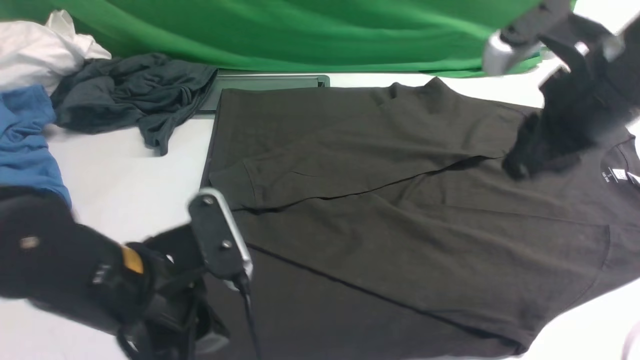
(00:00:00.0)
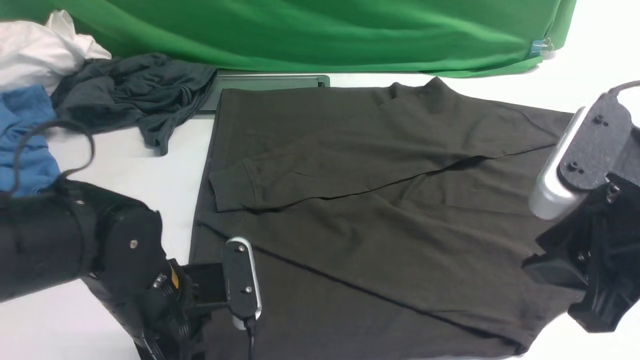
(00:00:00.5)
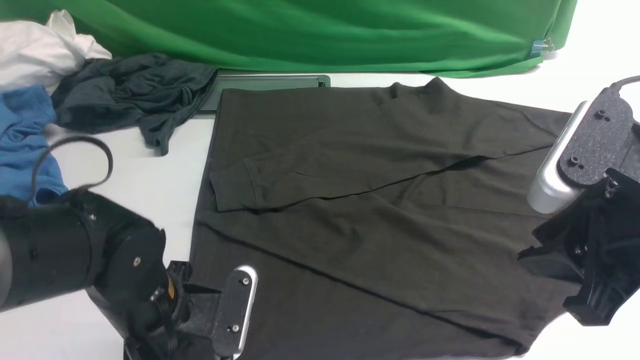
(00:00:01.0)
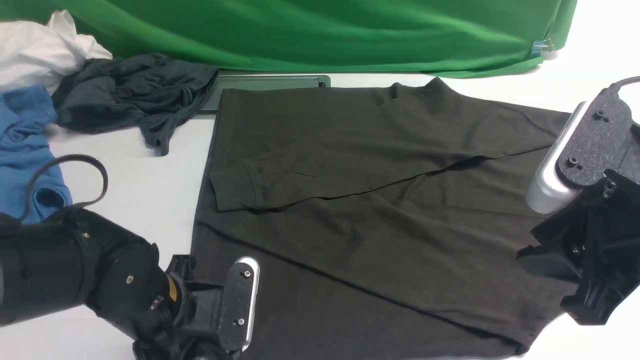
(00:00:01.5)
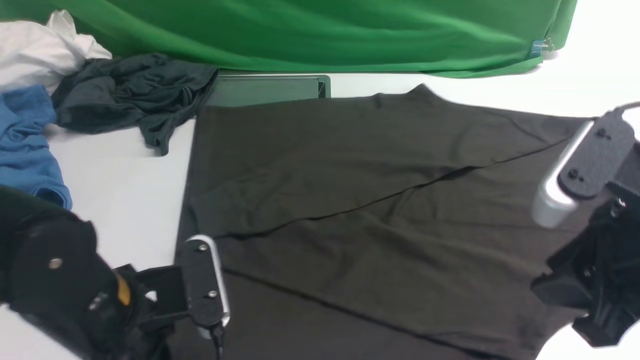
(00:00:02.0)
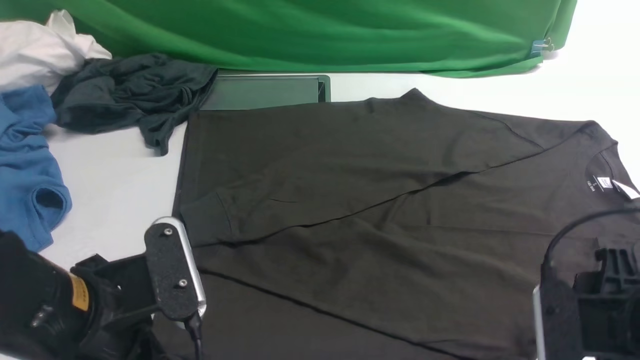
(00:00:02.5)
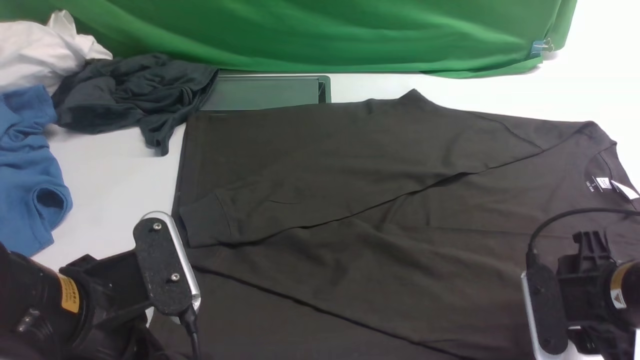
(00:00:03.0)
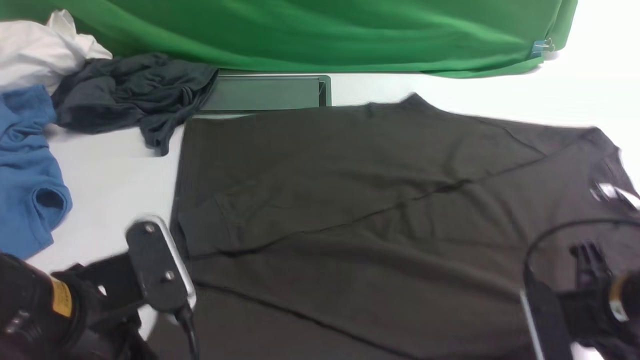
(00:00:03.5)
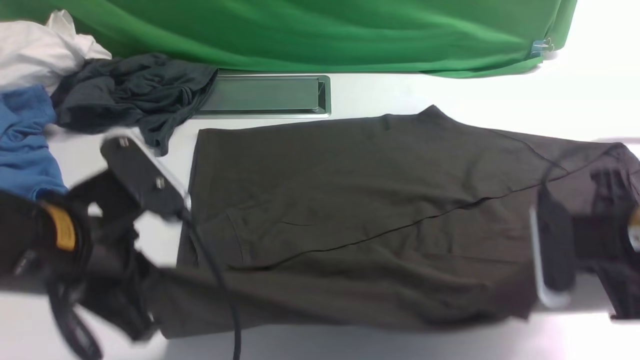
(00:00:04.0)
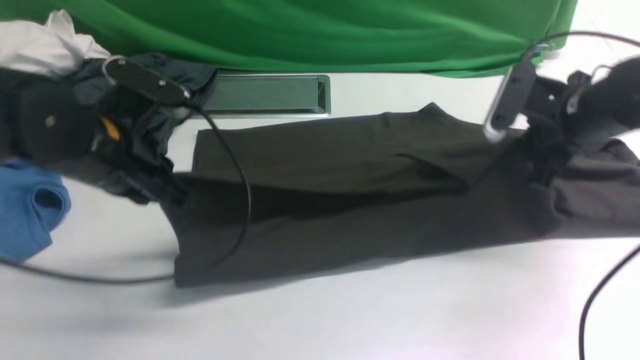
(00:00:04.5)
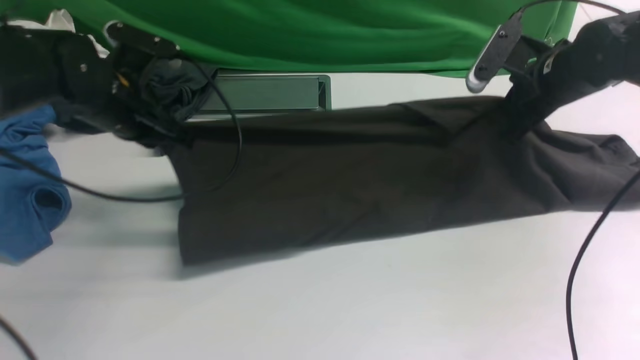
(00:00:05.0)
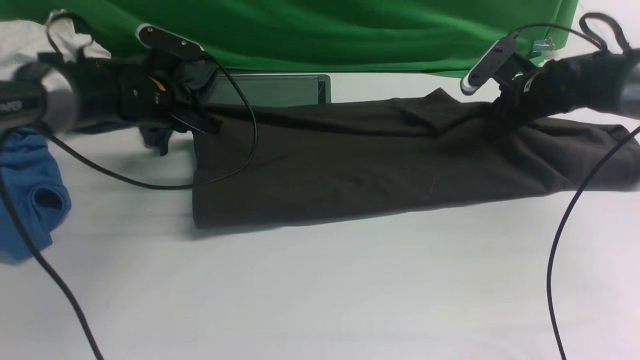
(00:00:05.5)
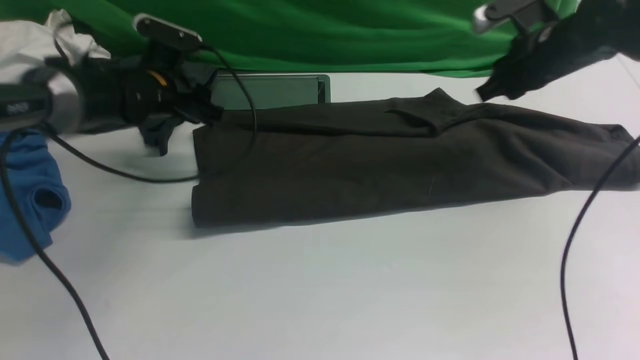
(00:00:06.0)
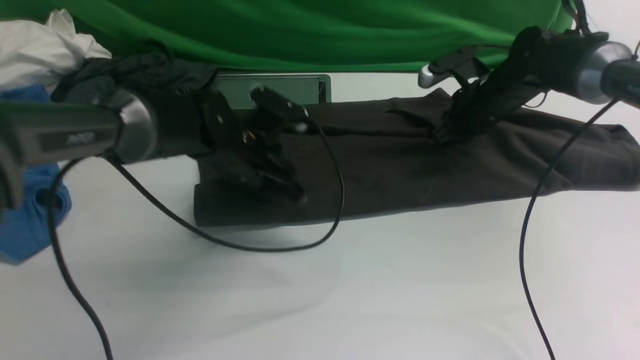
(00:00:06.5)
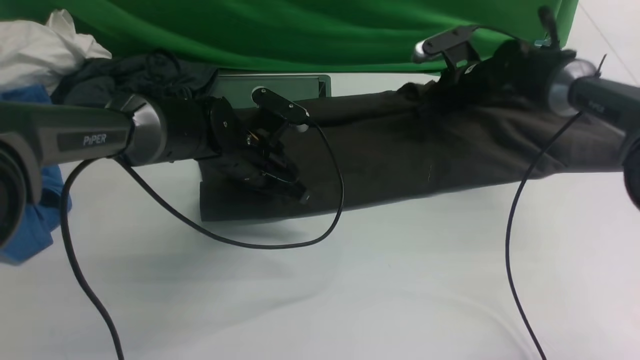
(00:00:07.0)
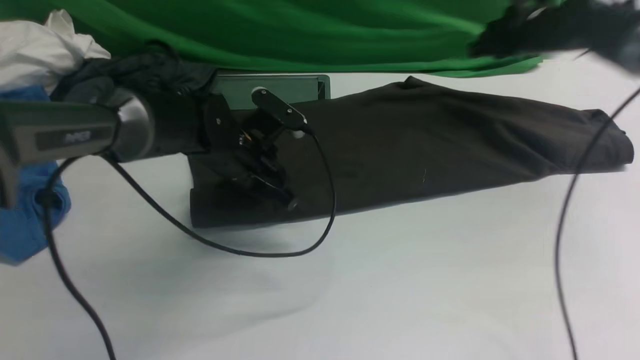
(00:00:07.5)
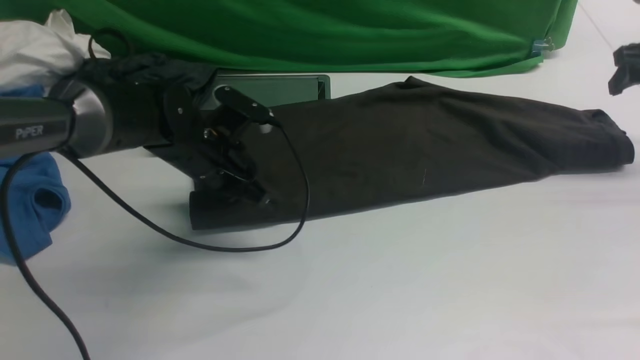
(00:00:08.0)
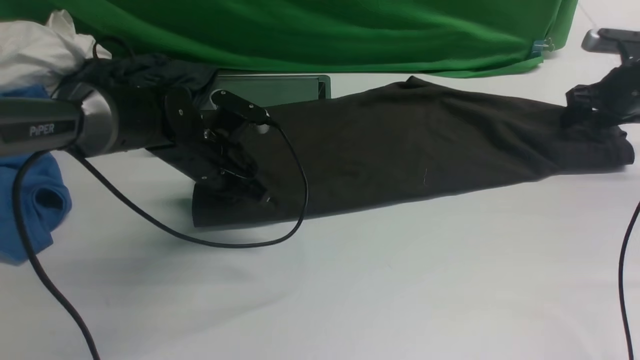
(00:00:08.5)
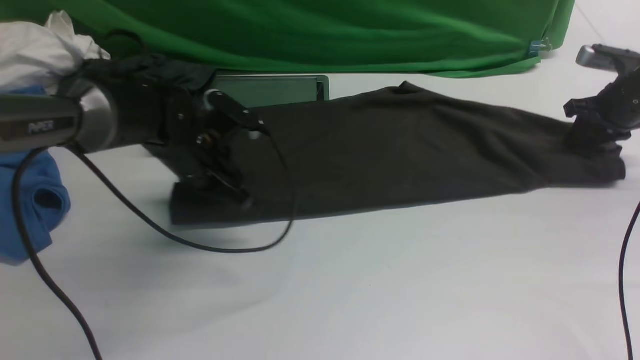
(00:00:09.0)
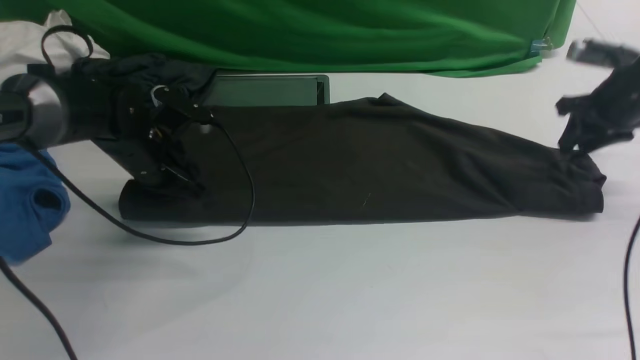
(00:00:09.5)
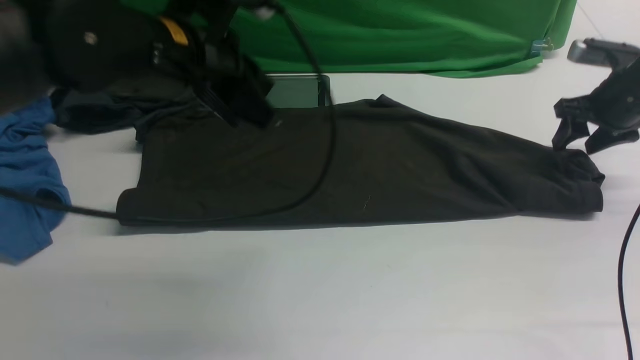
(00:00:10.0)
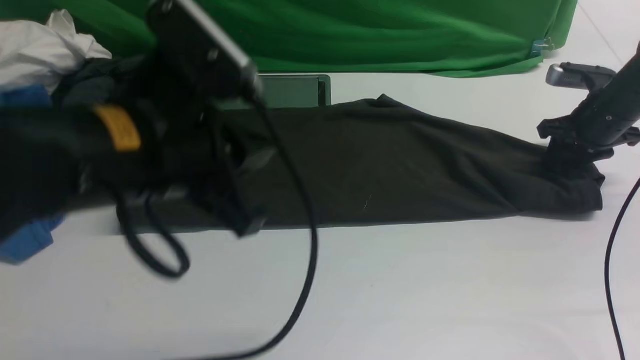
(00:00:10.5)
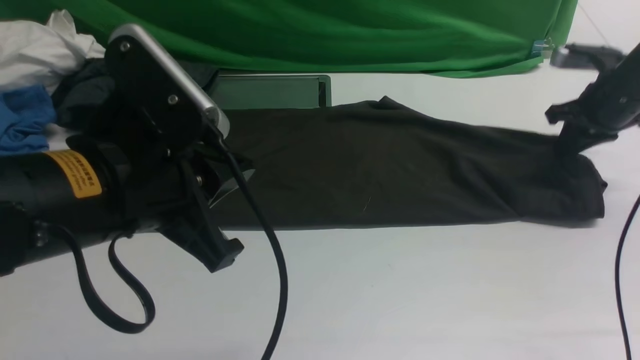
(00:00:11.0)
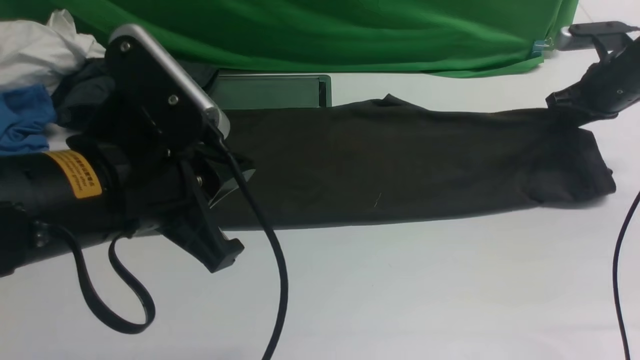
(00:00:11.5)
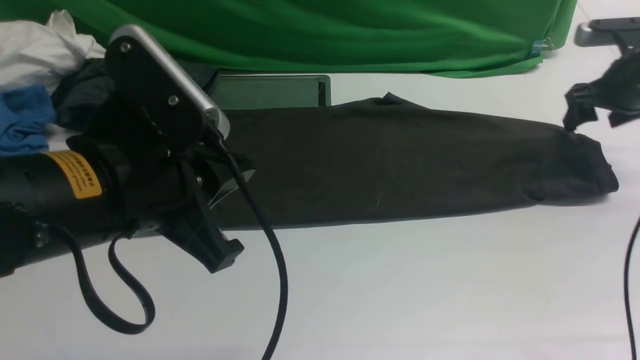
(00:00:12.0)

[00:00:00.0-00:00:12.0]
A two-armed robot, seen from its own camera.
Step, 00:00:00.0 to 00:00:03.5: use both arms simultaneously to clamp the lower edge of the clothing fabric.
00:00:00.0 to 00:00:02.0: The right gripper moves backward, about 10 cm. The left gripper opens and closes again.
00:00:02.0 to 00:00:04.0: The right gripper is displaced downward and forward by some 10 cm, and closes up, while the left gripper is displaced upward by approximately 5 cm.
00:00:04.0 to 00:00:06.0: Both grippers travel together forward, roughly 25 cm. The left gripper opens its fingers.
00:00:06.0 to 00:00:08.0: The left gripper moves backward and to the right, some 10 cm, and closes; the right gripper shifts about 20 cm to the right, and opens.
00:00:08.0 to 00:00:10.0: The left gripper shifts roughly 20 cm upward and backward; the right gripper shifts approximately 5 cm to the left, and closes, then opens again.
00:00:10.0 to 00:00:12.0: The right gripper closes, then reopens; the left gripper heads backward, covering some 10 cm.

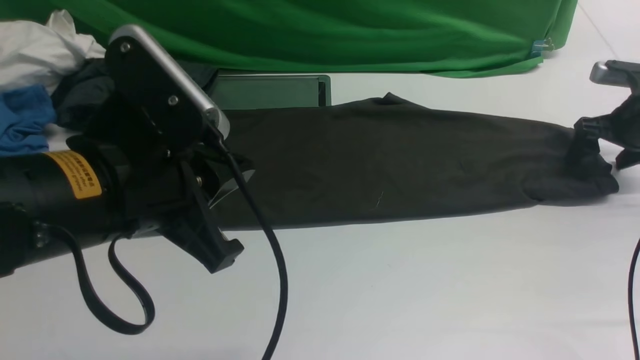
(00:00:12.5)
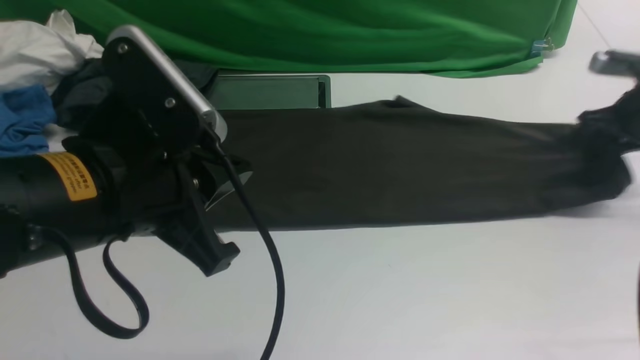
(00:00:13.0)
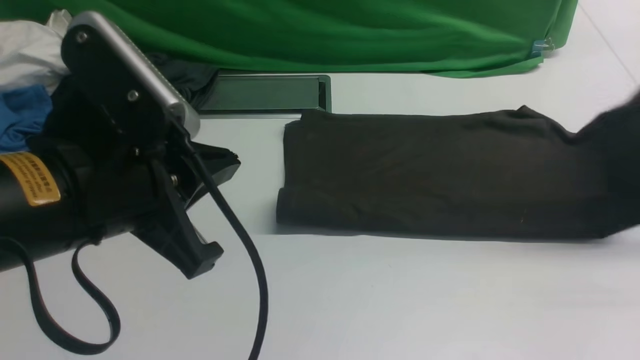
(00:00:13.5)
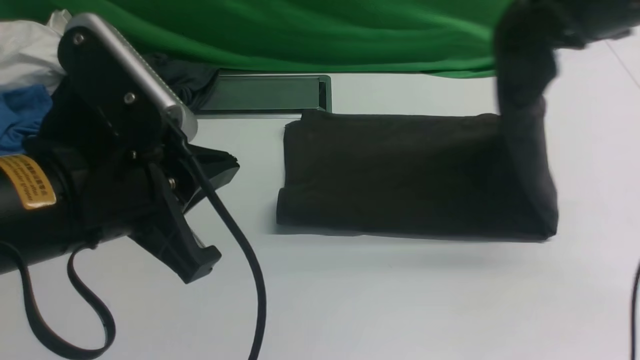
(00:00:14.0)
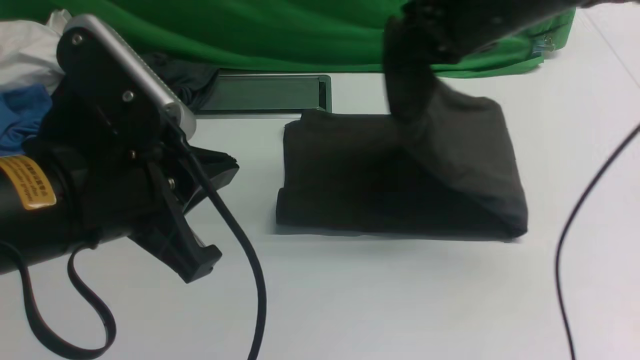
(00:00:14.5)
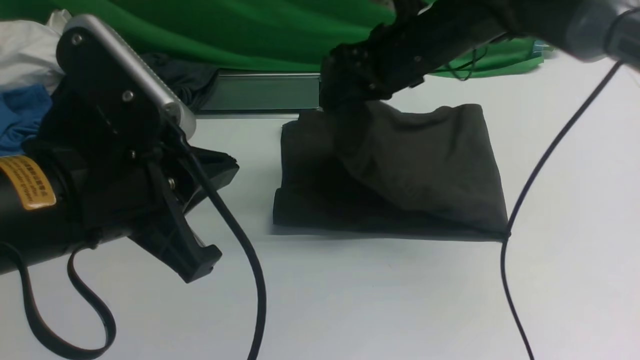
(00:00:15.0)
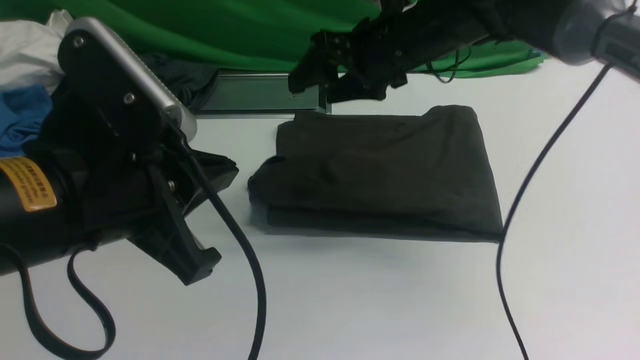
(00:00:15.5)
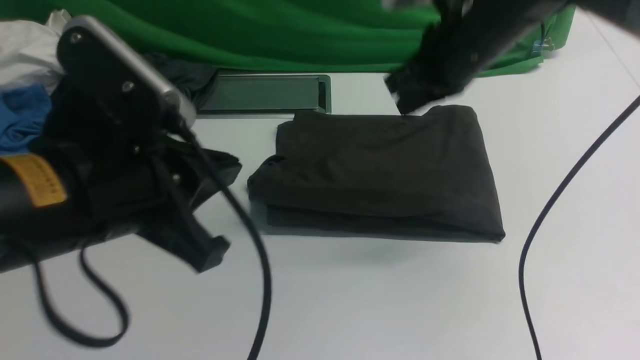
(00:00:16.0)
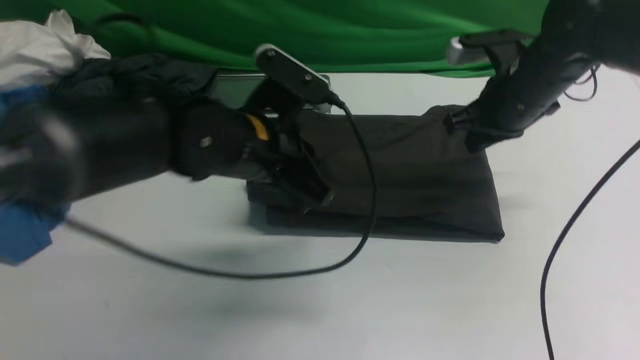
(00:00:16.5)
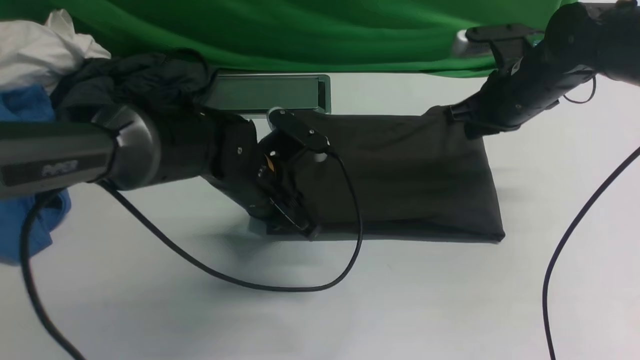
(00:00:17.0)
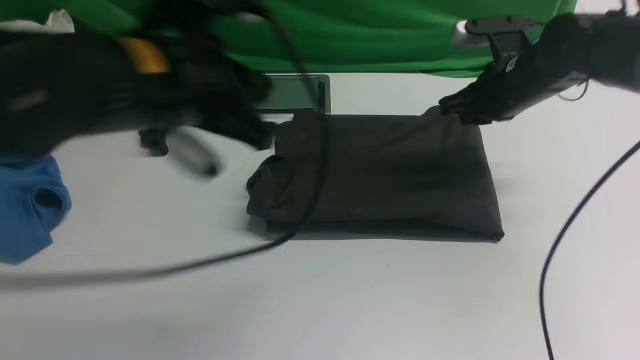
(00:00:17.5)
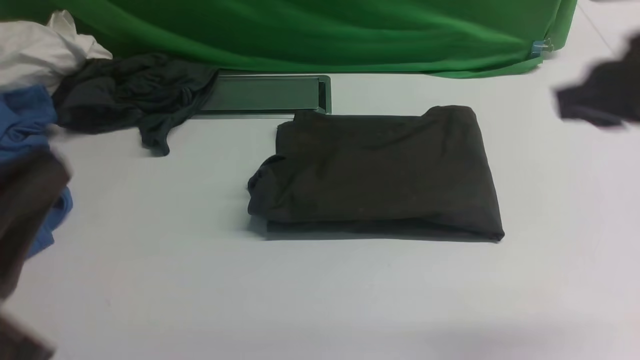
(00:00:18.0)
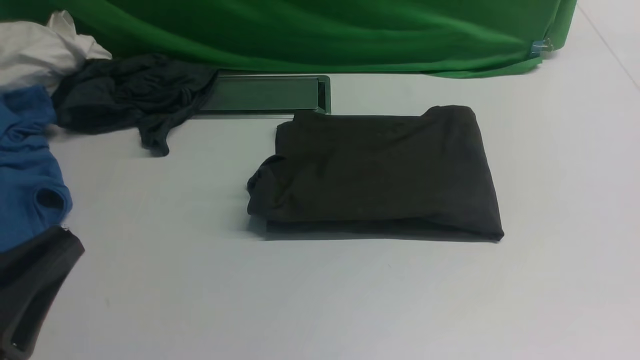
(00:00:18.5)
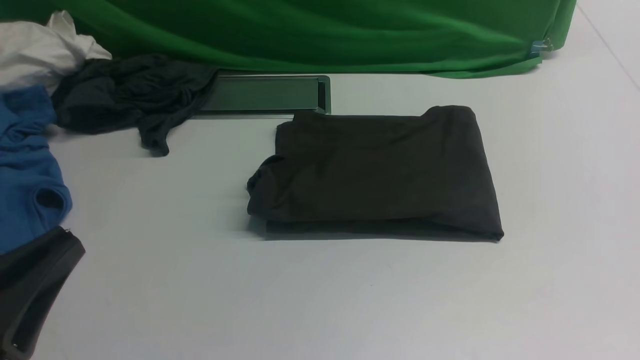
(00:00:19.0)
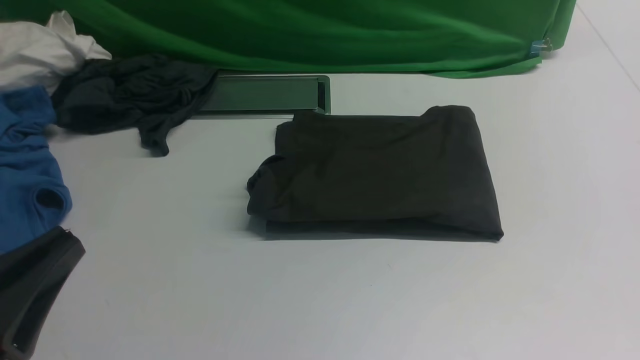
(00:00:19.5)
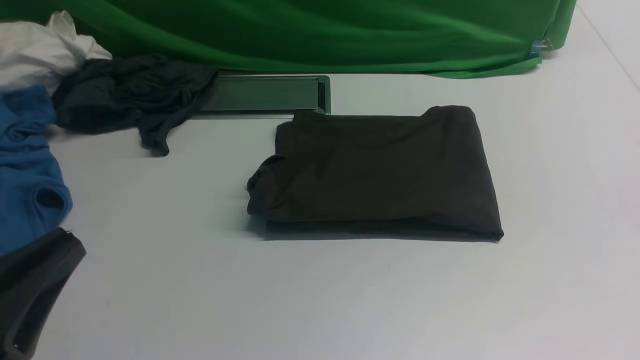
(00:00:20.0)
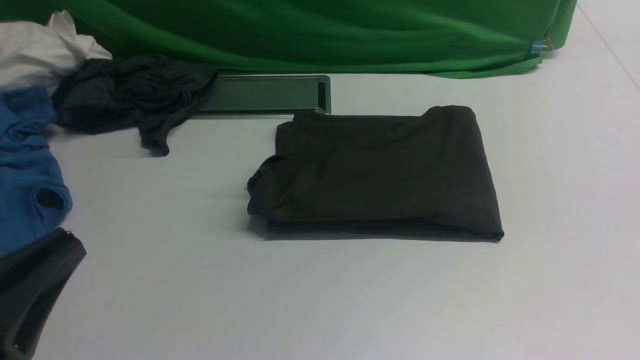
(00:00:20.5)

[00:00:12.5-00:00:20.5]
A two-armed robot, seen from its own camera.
Step, 00:00:13.5 to 00:00:15.0: use the right arm to drag the right edge of the fabric to the left and folds it over the left edge.
00:00:12.5 to 00:00:14.5: The right gripper goes some 30 cm to the left and upward, and closes its fingers.
00:00:14.5 to 00:00:16.5: The left gripper is displaced forward, downward and to the right by some 20 cm. Meanwhile the right gripper moves downward and to the right, approximately 10 cm, and opens, then closes once more.
00:00:16.5 to 00:00:18.5: The left gripper shifts some 30 cm backward and to the left. Meanwhile the right gripper moves backward, approximately 35 cm.
